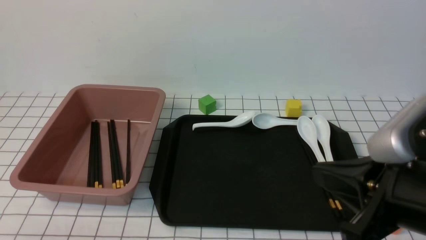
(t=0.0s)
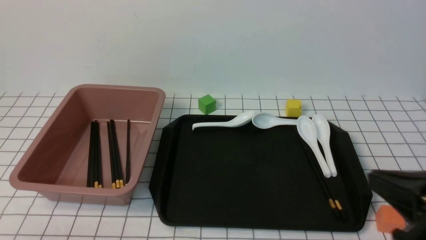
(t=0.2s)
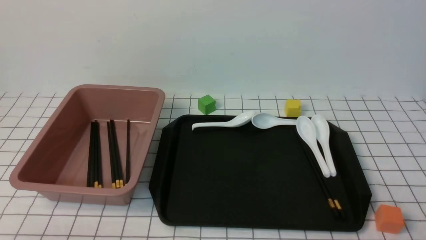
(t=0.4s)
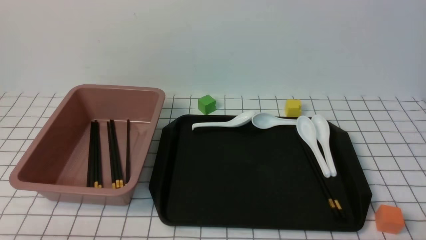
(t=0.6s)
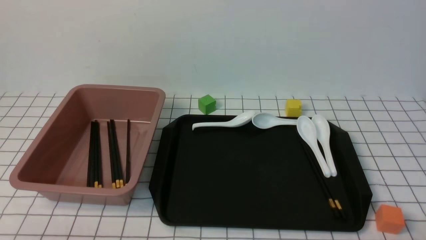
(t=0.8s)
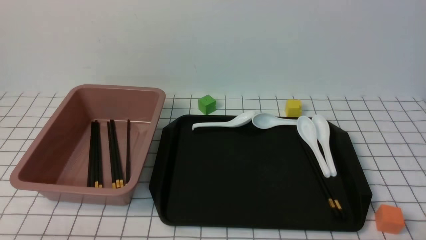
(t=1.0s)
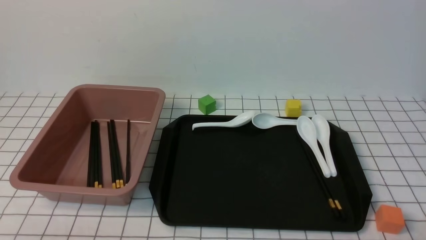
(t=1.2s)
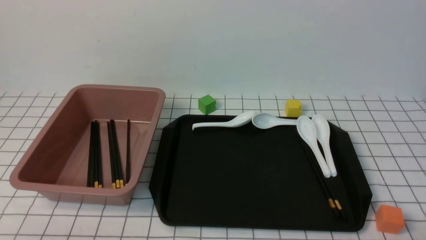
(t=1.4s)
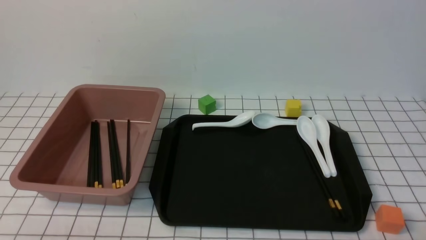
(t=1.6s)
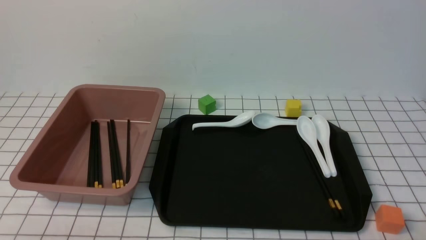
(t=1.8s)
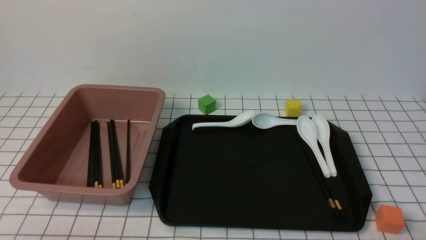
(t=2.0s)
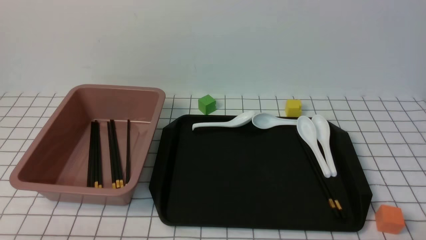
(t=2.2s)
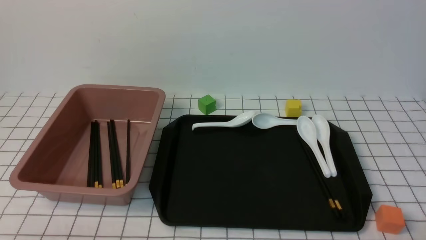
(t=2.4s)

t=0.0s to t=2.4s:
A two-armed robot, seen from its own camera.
t=0.0s to t=1.2s: The right gripper goes approximately 20 cm downward, to the right and backward.
t=1.2s to t=2.4s: Both grippers stay about where they are.
